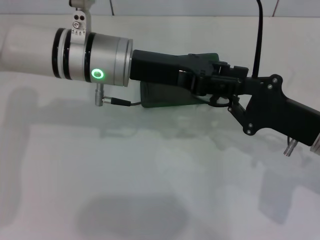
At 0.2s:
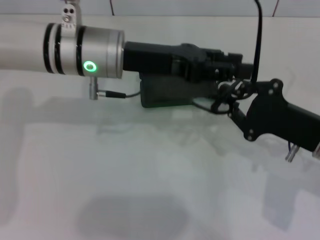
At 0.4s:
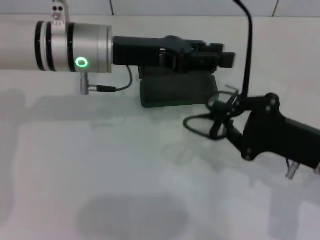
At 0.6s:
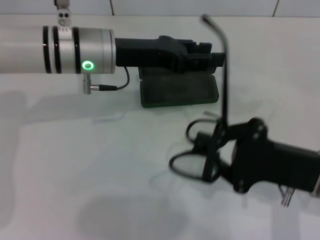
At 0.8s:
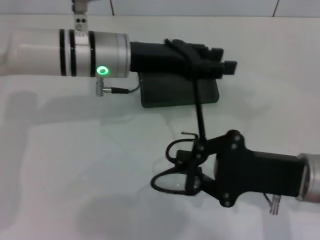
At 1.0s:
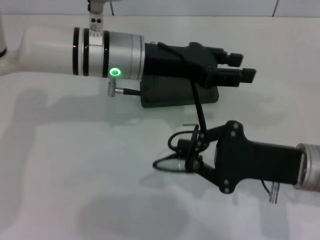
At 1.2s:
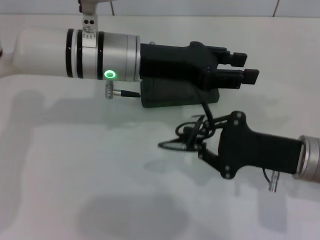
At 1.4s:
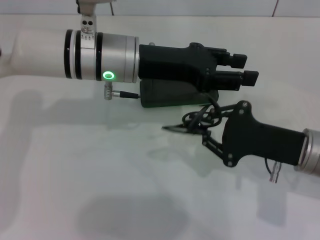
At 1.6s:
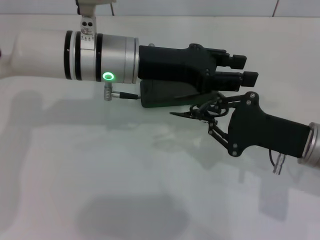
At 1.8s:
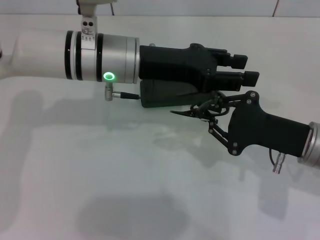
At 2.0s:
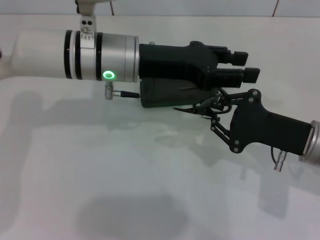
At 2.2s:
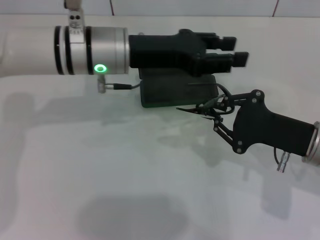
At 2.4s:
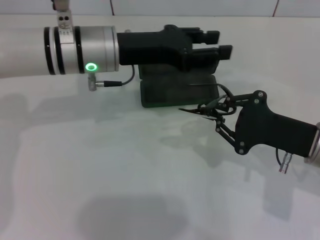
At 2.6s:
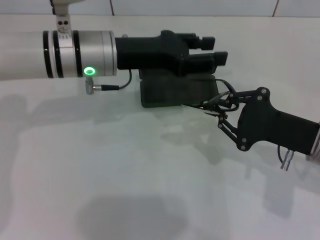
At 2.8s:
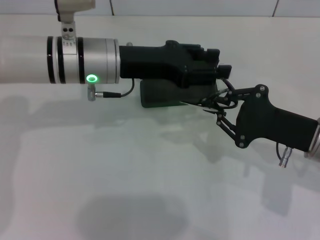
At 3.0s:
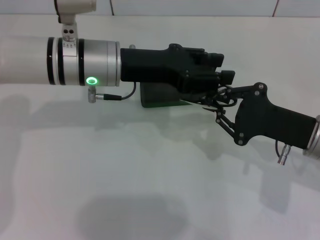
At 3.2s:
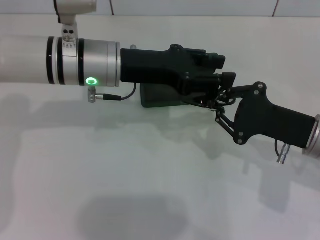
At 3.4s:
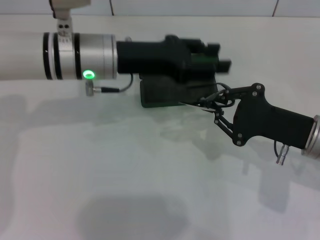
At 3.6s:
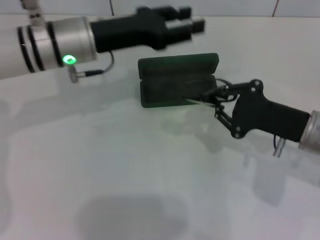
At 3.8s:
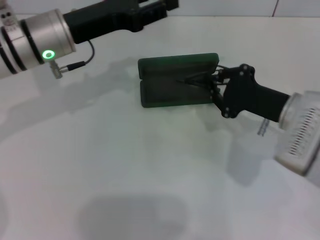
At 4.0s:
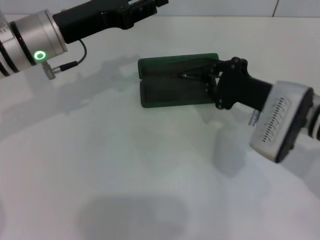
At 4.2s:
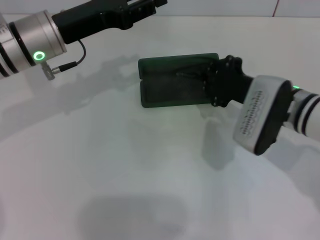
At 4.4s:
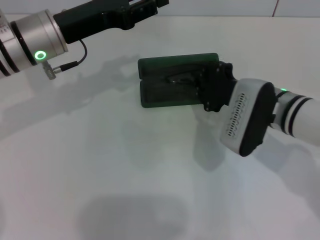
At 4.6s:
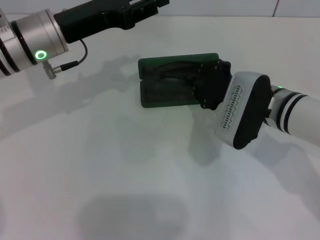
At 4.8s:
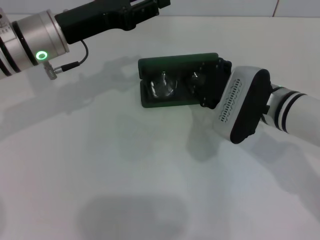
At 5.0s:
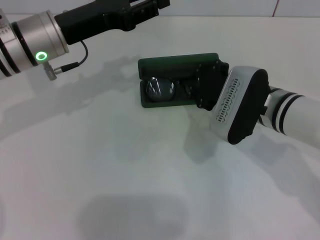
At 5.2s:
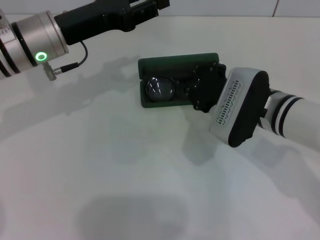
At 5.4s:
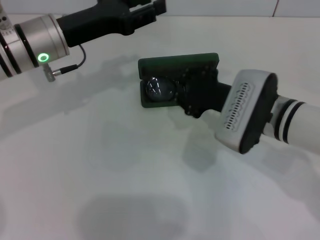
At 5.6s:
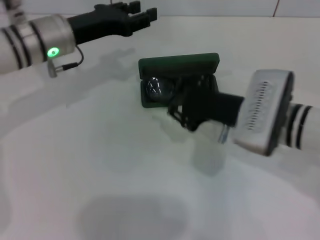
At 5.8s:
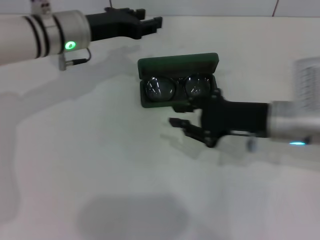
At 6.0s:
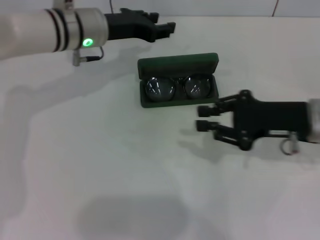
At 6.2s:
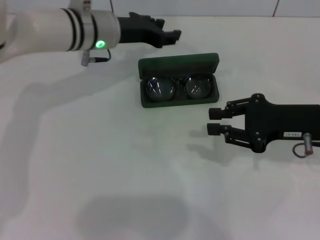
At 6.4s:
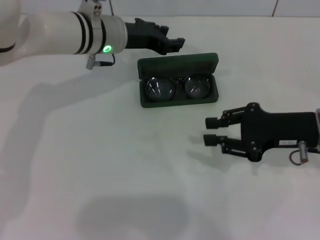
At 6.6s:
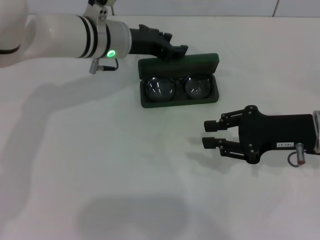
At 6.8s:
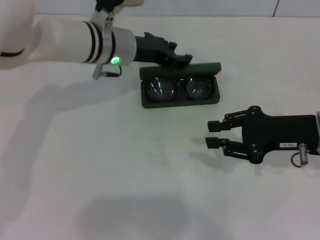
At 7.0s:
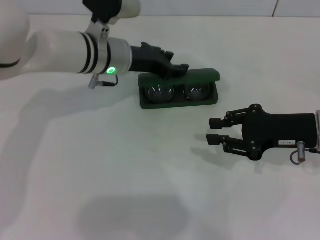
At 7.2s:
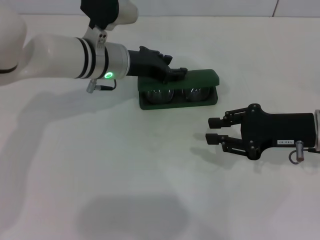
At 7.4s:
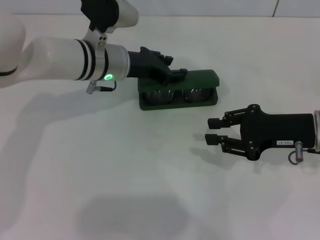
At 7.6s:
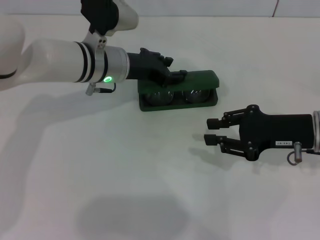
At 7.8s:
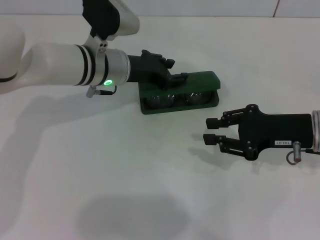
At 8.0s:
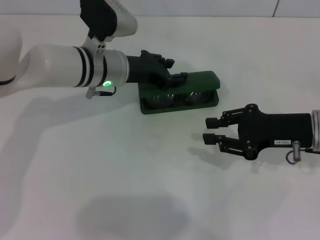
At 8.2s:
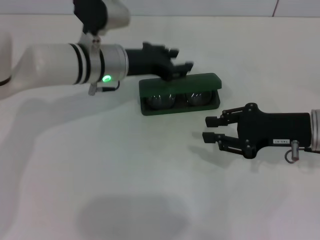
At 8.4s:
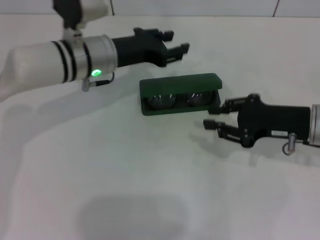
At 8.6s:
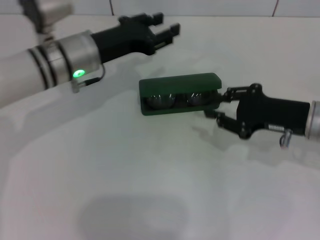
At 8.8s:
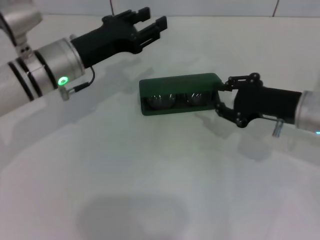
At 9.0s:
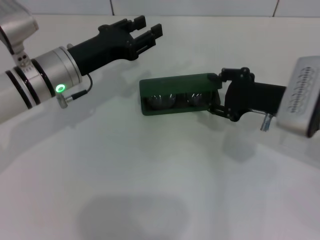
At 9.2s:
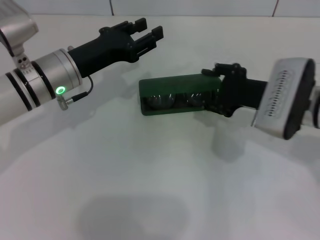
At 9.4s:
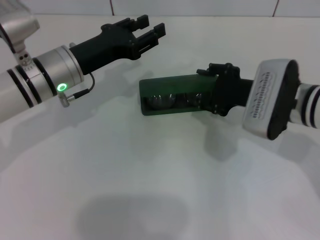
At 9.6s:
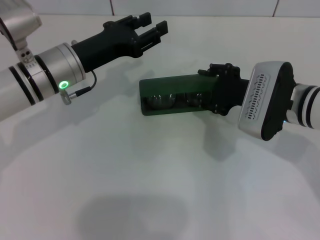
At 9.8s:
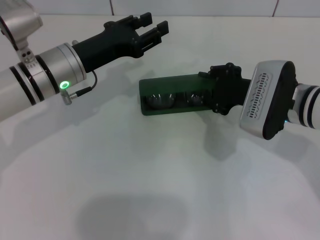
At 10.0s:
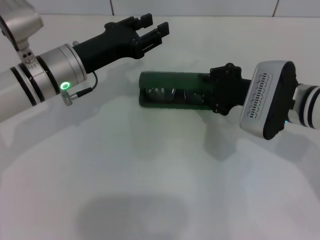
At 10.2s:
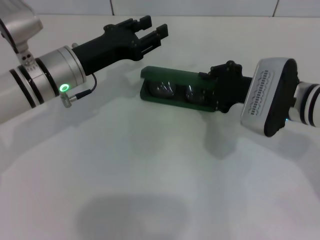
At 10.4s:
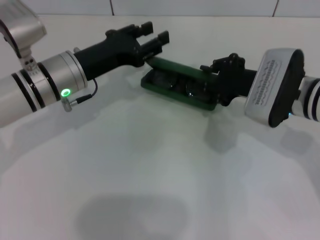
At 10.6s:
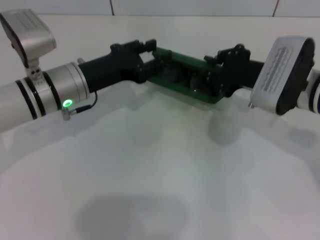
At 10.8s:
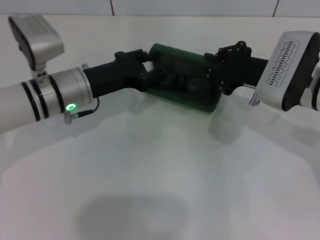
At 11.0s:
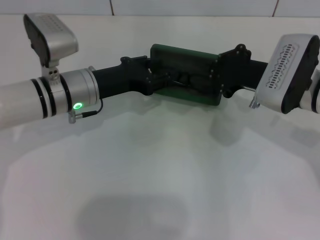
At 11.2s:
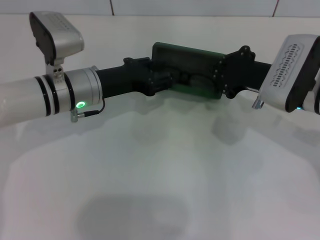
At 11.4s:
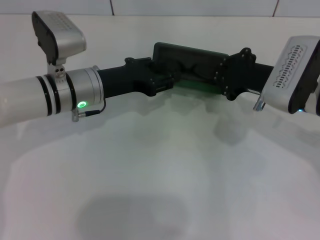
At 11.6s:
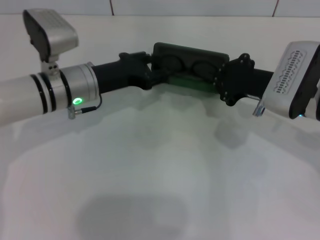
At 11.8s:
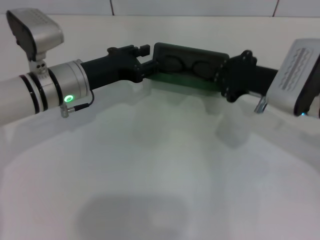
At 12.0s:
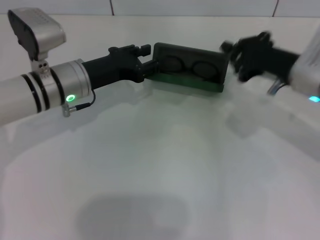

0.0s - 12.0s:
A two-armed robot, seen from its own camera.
Step, 0.0s - 3.2s: Fold the frame with your left hand.
Step, 3.4s - 4.8s: Put the glasses into the case with your right hand.
1.6s - 3.0s: There are only small adjustments of the grippers.
3.0s - 4.4s: The right gripper is displaced to the left and forward by roughly 10 cm. Meanwhile the left gripper moves to the left, some 5 cm.
4.4s - 6.0s: The left gripper moves forward, approximately 5 cm, while the right gripper travels to the right by some 10 cm.
6.0s - 7.6s: The left gripper ends up approximately 5 cm from where it was.
7.6s - 9.0s: The left gripper moves to the left, roughly 5 cm.
9.0s - 10.4s: There are only small adjustments of the grippers.

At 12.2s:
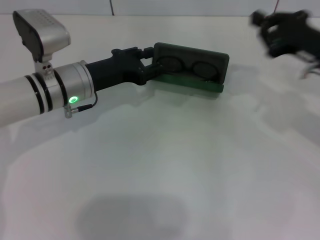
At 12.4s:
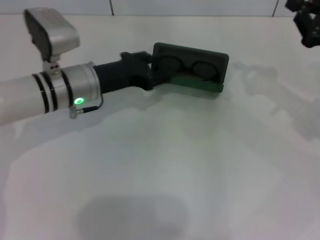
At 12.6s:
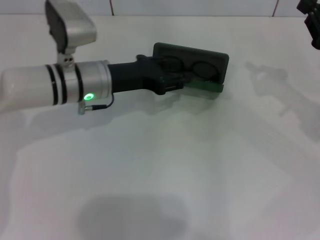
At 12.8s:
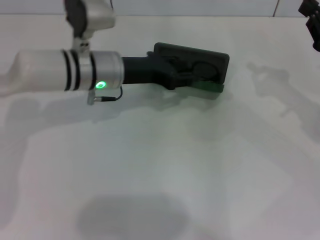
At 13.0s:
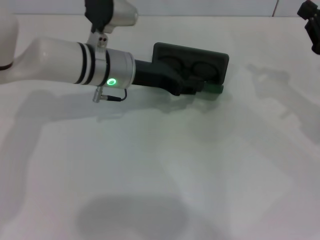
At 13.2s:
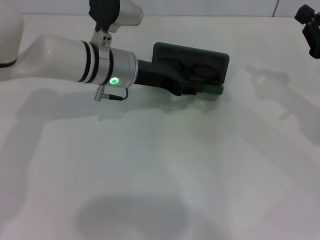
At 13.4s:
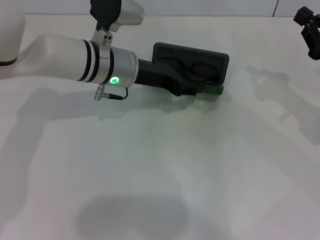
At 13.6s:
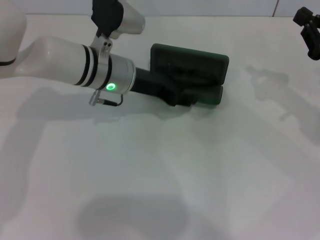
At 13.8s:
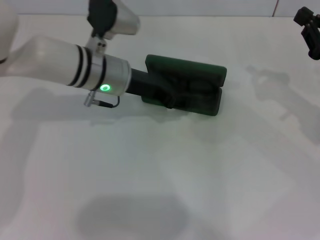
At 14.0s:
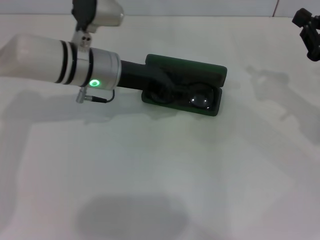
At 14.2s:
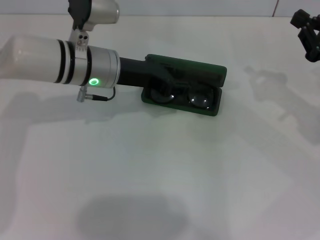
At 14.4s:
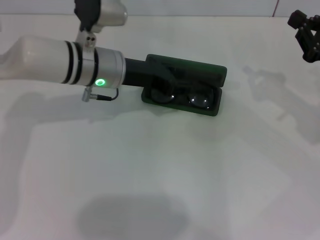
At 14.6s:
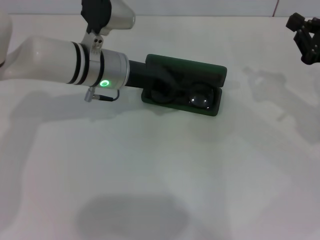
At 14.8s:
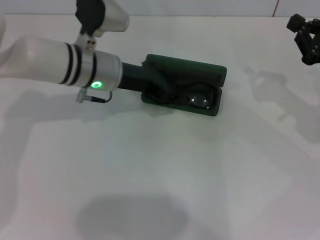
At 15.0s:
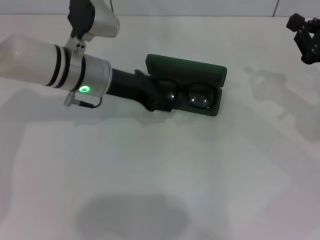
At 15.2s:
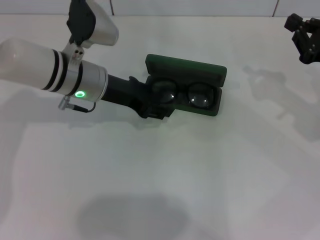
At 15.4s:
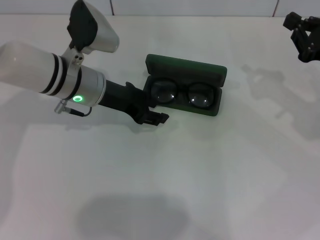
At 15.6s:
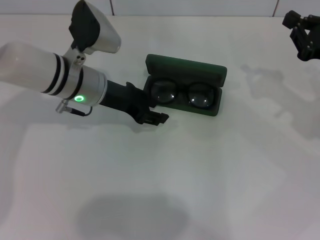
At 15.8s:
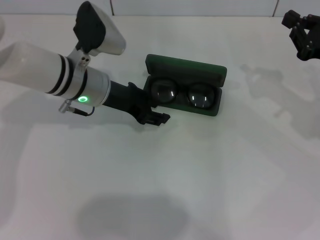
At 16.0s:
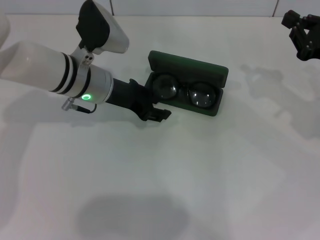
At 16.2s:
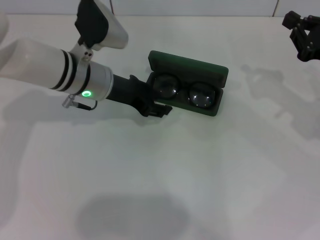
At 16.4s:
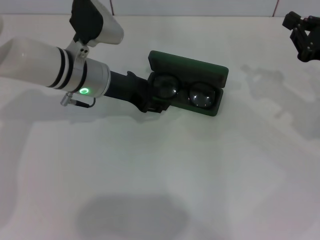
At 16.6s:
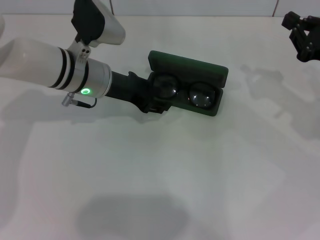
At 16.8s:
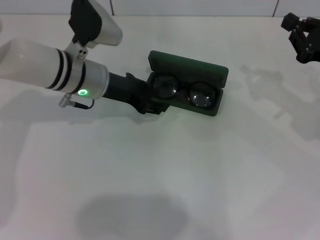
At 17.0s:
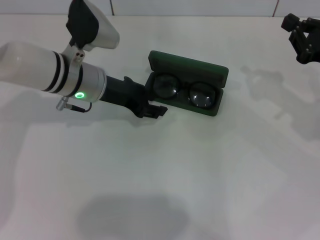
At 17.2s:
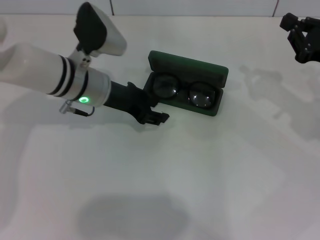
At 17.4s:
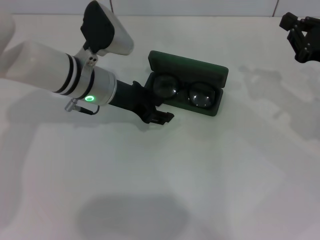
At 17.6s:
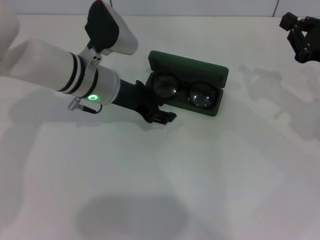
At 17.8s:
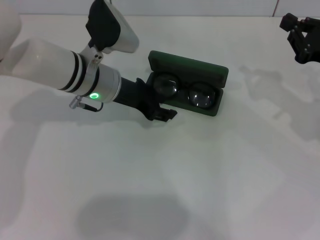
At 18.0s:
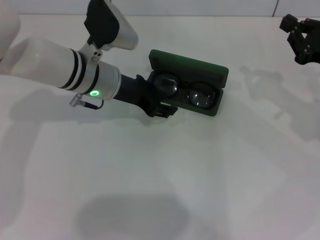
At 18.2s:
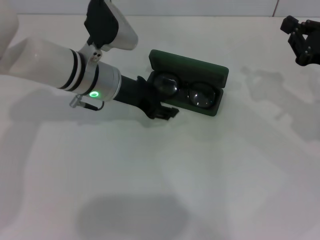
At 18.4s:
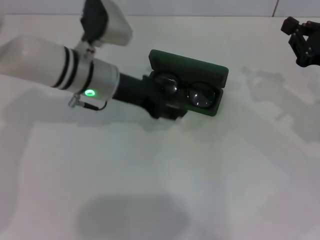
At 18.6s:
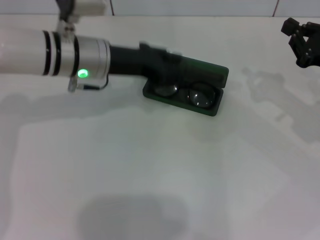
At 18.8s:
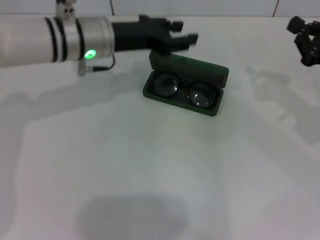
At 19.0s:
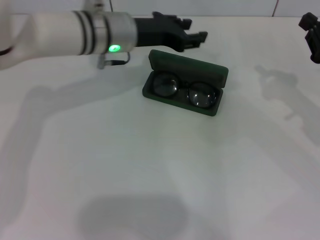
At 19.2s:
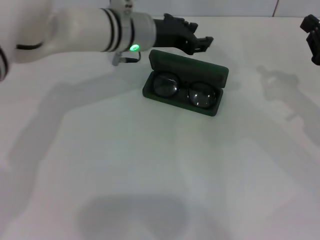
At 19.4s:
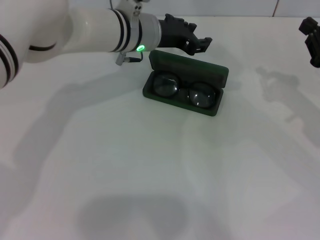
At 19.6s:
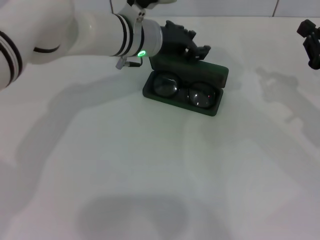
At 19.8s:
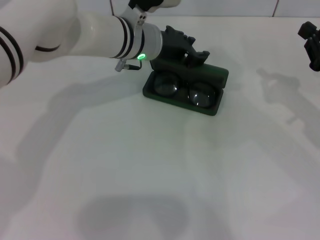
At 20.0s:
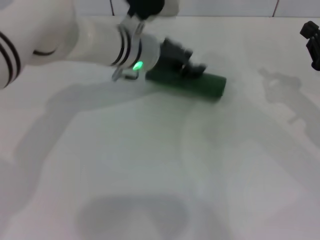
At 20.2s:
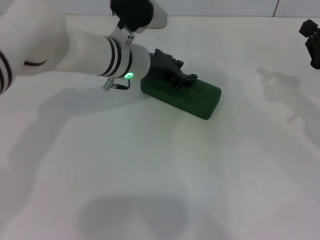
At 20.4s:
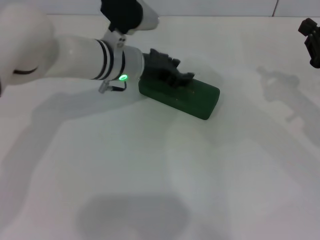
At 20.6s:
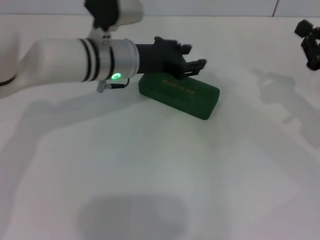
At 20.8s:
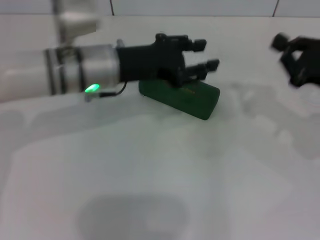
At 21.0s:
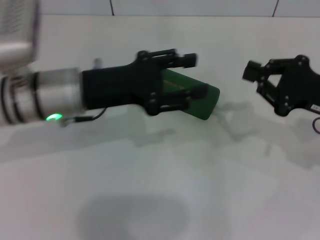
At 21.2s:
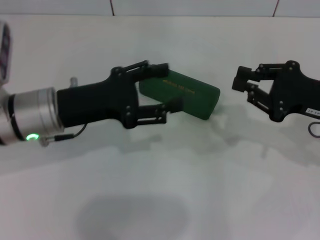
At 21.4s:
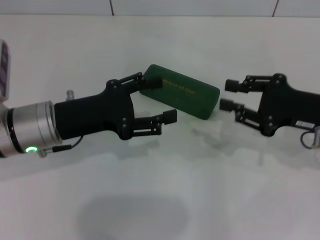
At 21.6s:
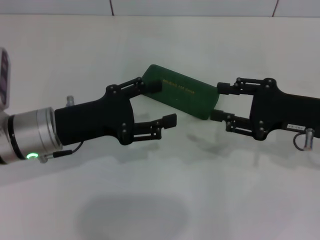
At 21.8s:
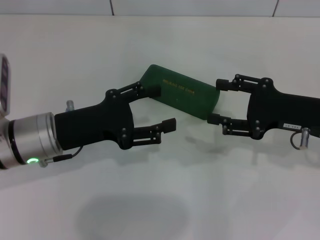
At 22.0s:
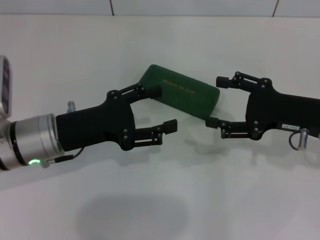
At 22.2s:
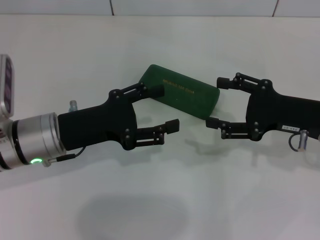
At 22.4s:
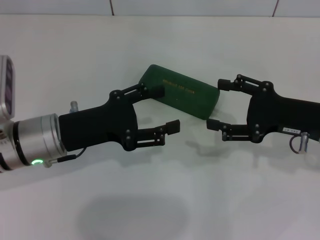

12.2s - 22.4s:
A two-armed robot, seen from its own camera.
Step, 12.2s - 20.2s: Close the glasses case with your left hand.
12.2s - 13.6s: The right gripper moves roughly 5 cm. Meanwhile the left gripper moves to the right, roughly 5 cm.
13.6s - 18.0s: The grippers stay close to where they were, moving slightly.
18.0s - 19.4s: The left gripper travels to the right by about 5 cm.
19.4s - 21.0s: The left gripper shifts some 15 cm backward and to the left.
21.0s - 22.4s: The left gripper heads downward, covering some 5 cm; the right gripper opens.
